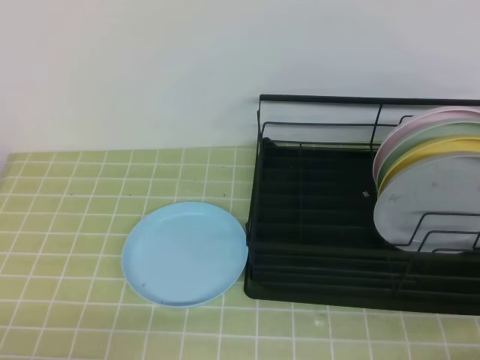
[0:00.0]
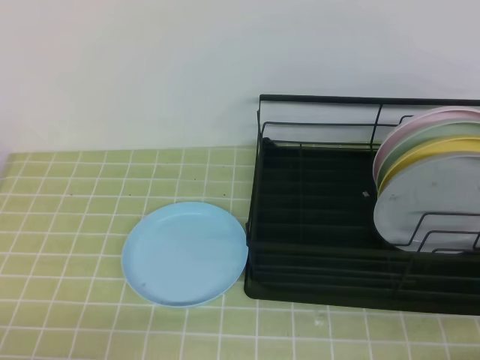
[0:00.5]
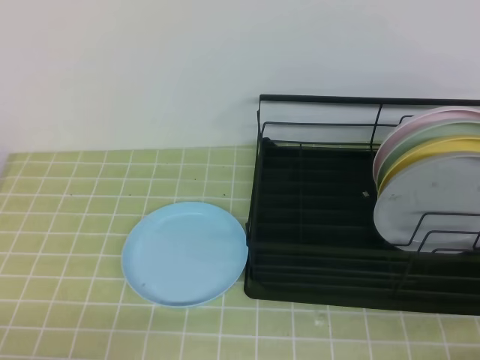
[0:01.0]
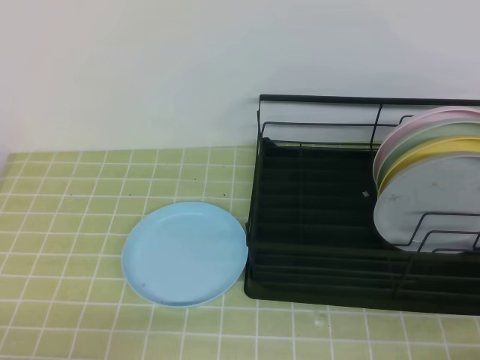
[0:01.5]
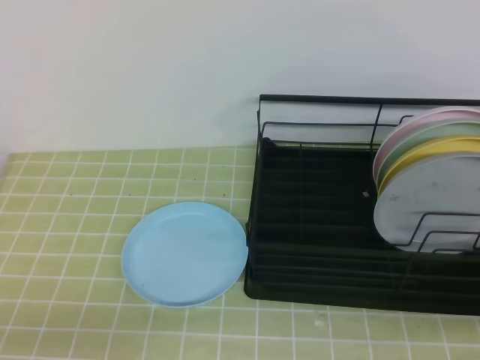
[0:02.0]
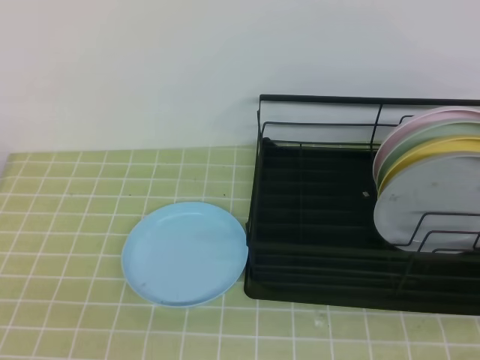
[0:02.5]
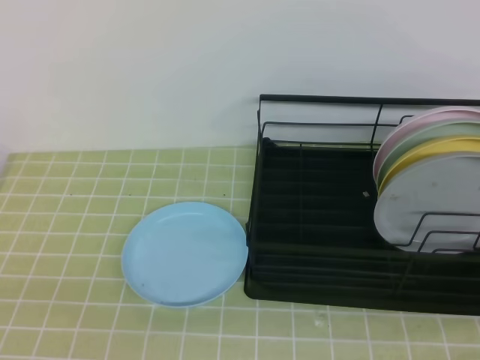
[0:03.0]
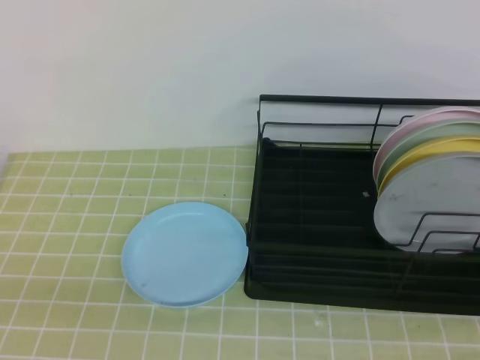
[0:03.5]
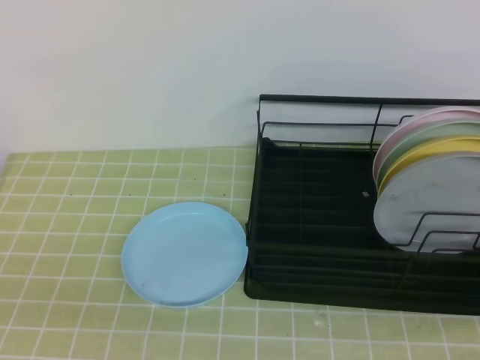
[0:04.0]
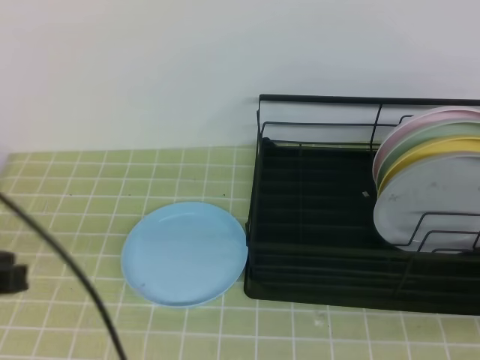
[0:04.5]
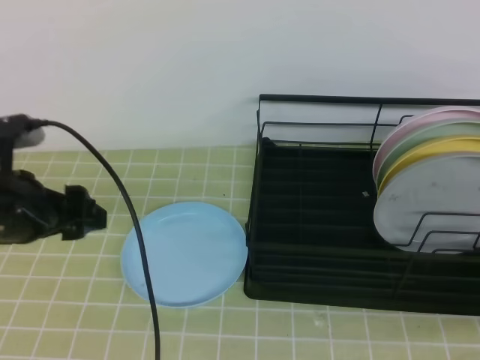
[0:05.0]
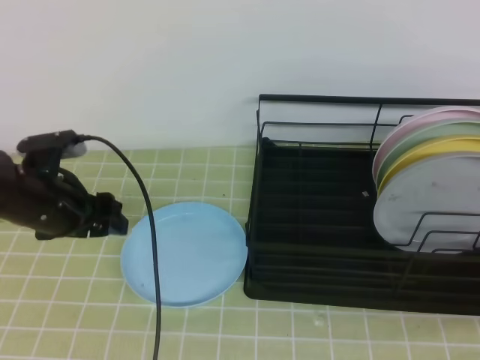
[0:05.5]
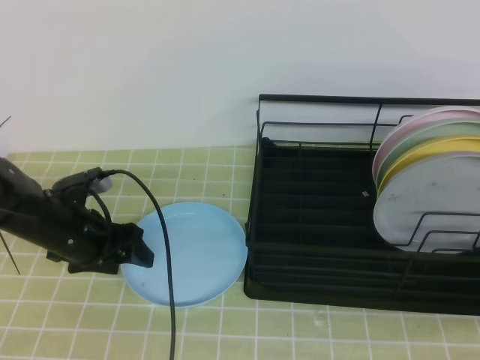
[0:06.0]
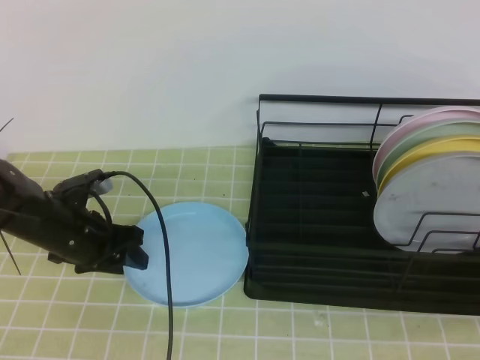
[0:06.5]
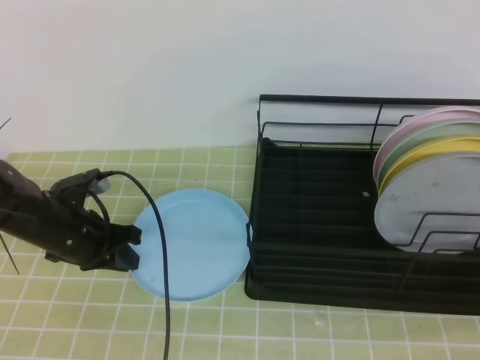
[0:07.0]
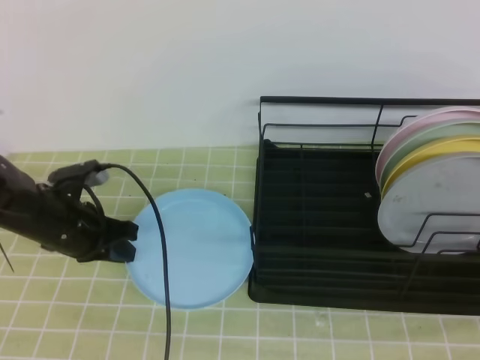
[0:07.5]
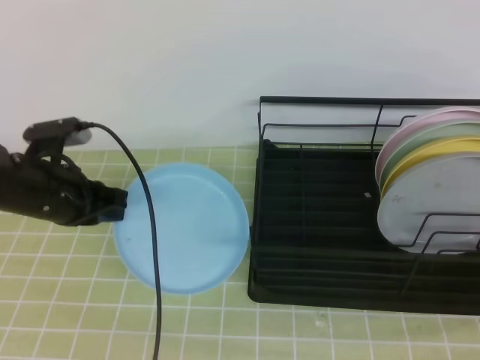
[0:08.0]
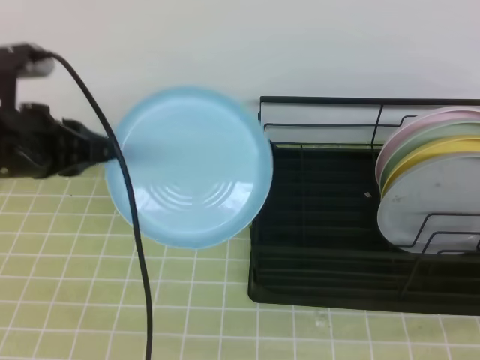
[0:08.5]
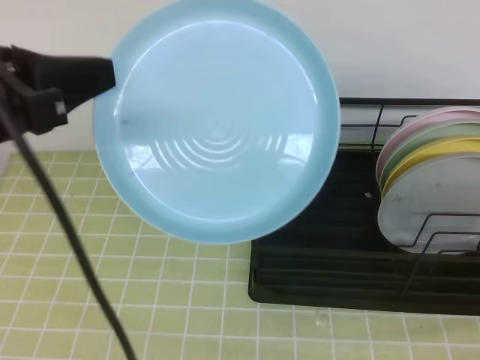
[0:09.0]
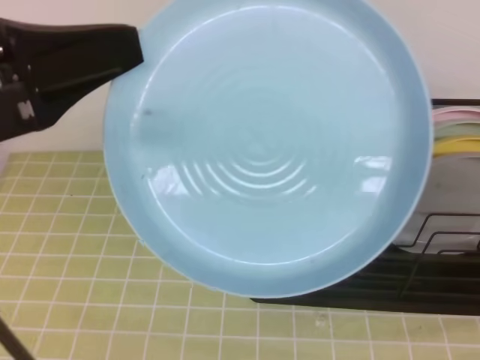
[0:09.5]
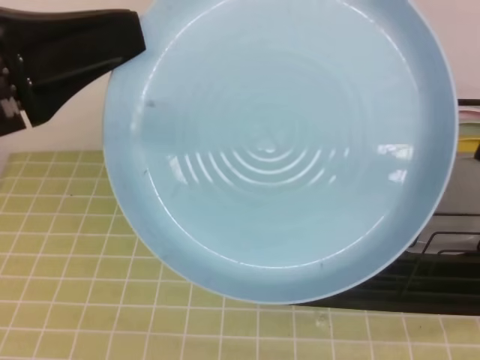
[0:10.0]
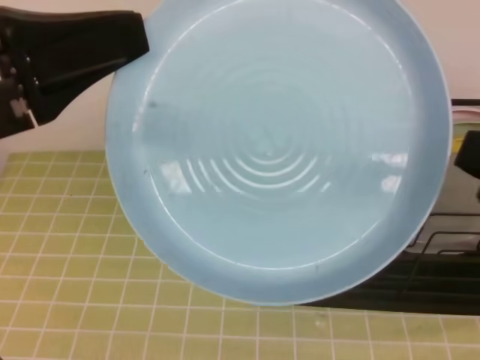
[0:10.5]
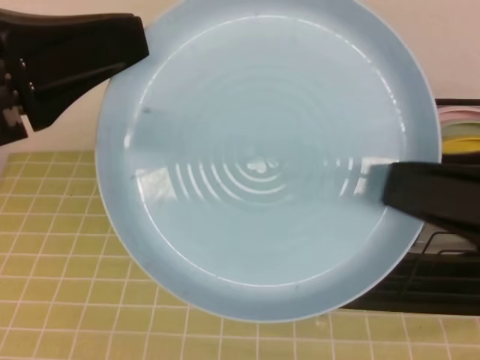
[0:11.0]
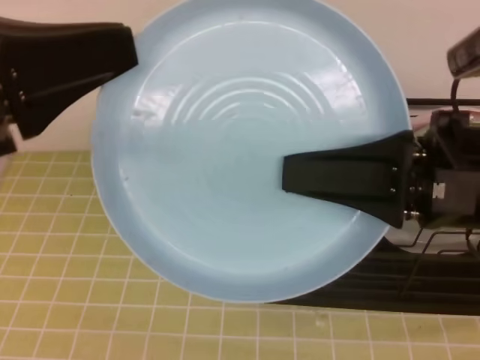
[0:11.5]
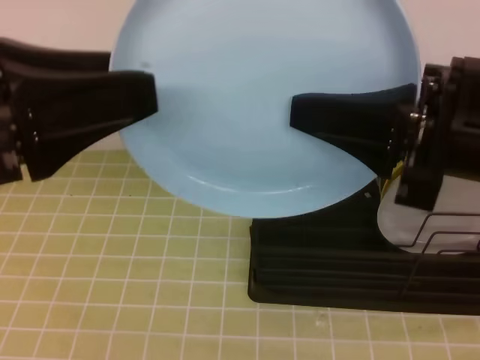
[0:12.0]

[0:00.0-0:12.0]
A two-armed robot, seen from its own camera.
0:04.0 to 0:06.0: The left gripper is displaced forward and downward by roughly 30 cm, and opens up.
0:06.0 to 0:08.0: The left gripper heads upward, covering approximately 5 cm, and closes.
0:08.0 to 0:10.0: The left gripper shifts some 30 cm upward and backward. Meanwhile the right gripper travels upward and to the left by about 15 cm, and opens its fingers.
0:10.0 to 0:12.0: The left gripper opens up. Meanwhile the right gripper shifts some 10 cm forward and to the left, and closes up.

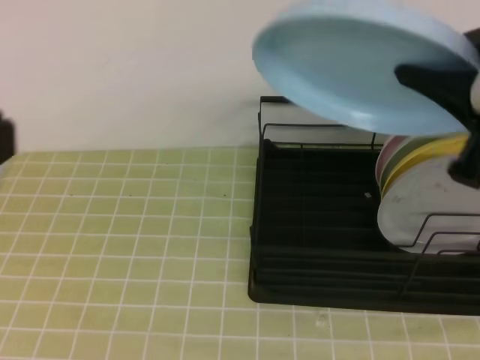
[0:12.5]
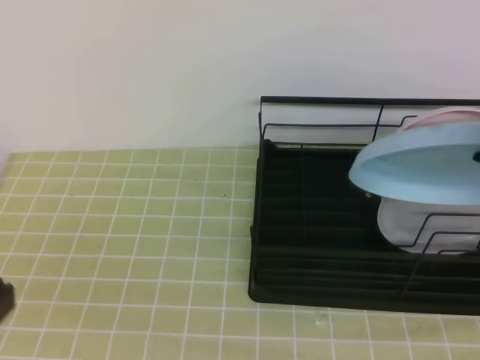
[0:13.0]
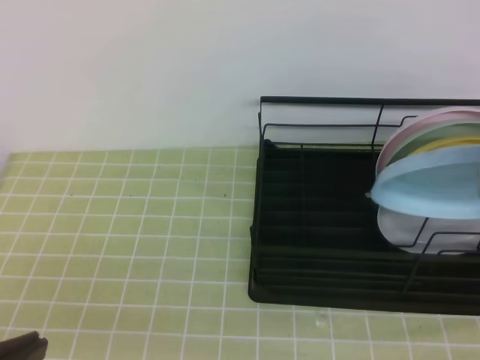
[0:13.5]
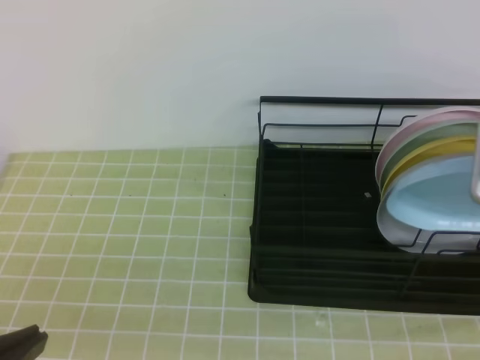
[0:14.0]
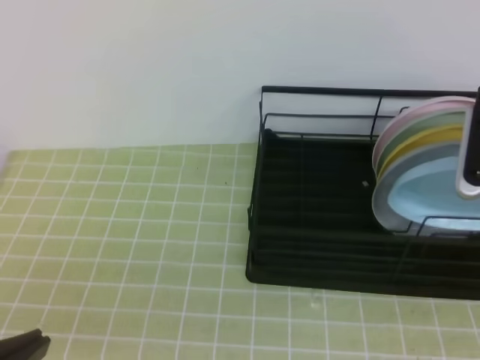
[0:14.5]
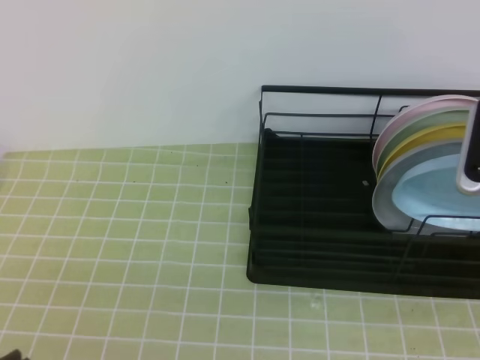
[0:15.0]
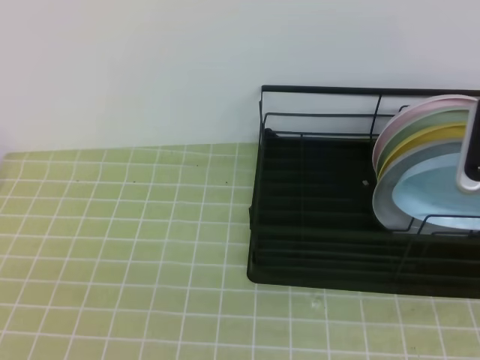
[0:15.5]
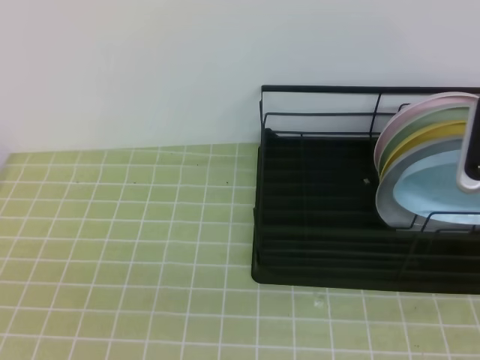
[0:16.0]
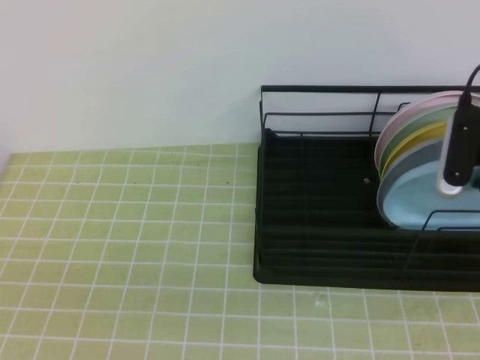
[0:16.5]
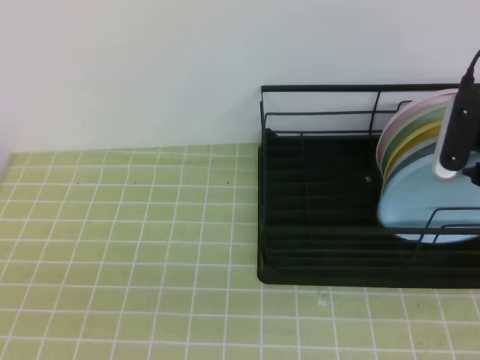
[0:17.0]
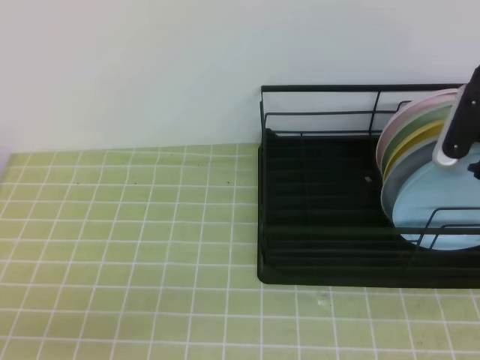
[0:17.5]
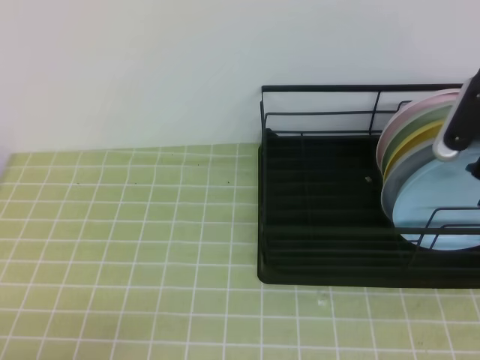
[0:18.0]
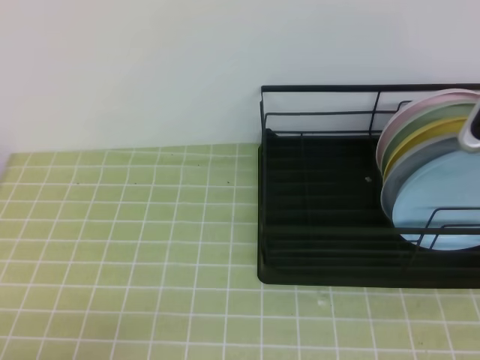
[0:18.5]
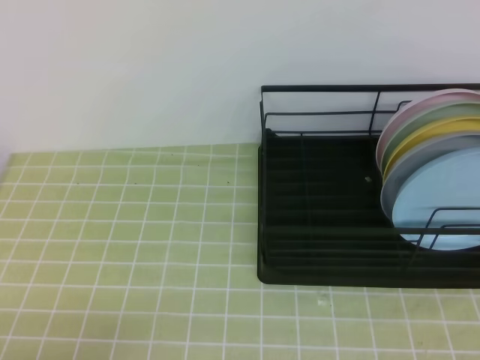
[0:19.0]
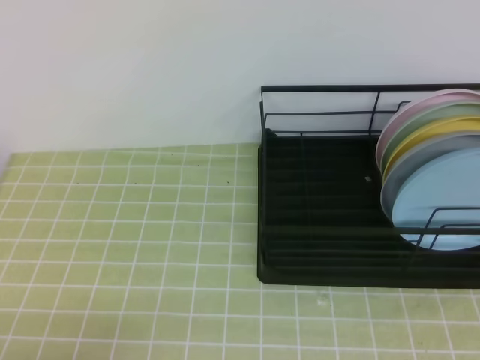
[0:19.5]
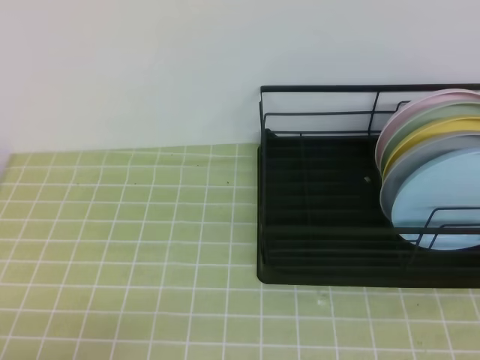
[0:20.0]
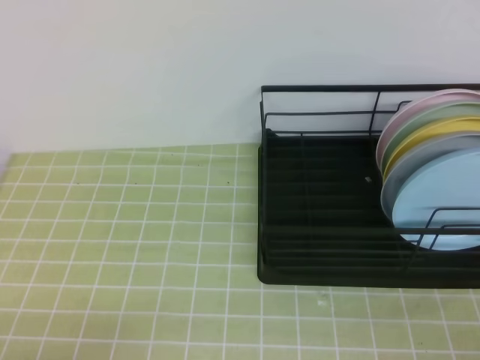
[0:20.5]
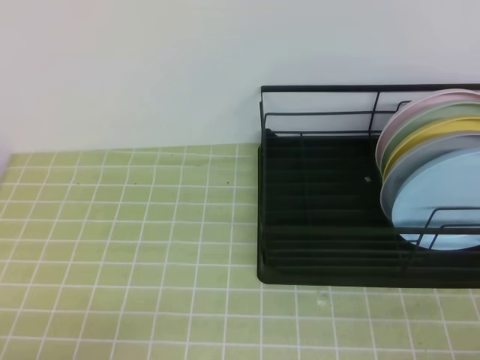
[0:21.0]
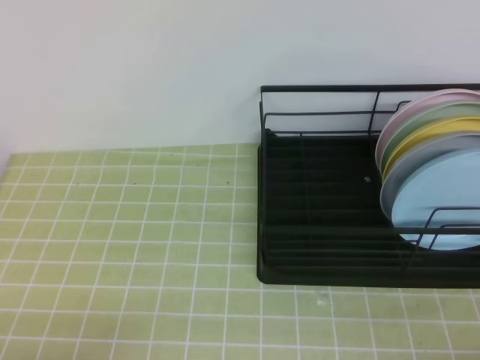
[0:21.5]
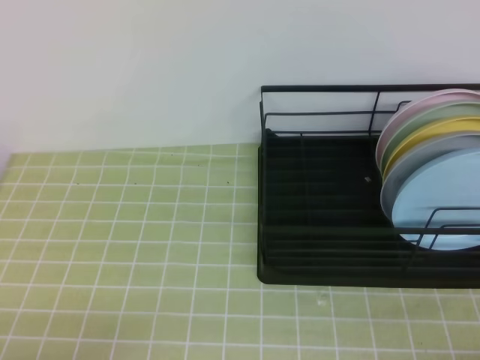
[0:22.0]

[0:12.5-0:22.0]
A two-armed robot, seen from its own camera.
0:12.5 to 0:14.5: The left gripper travels downward by roughly 15 cm, while the right gripper heads downward, forward and to the right, covering approximately 15 cm.
0:14.5 to 0:16.5: The right gripper opens its fingers.
0:16.5 to 0:18.0: The right gripper opens its fingers.
0:18.0 to 0:20.0: The right gripper is displaced backward by approximately 25 cm, and closes.
